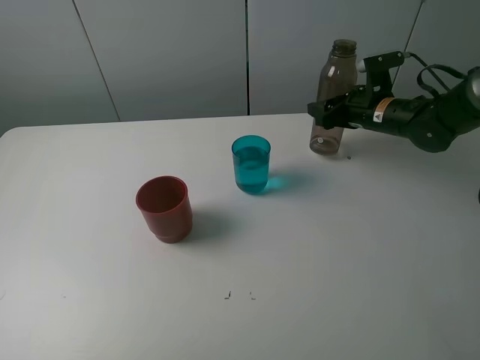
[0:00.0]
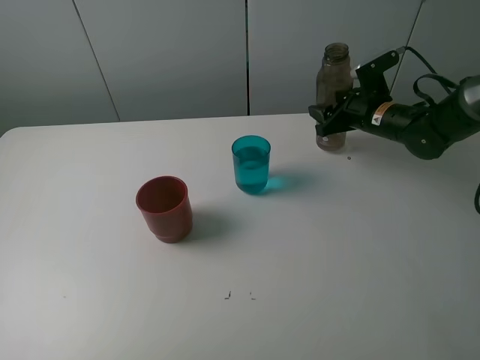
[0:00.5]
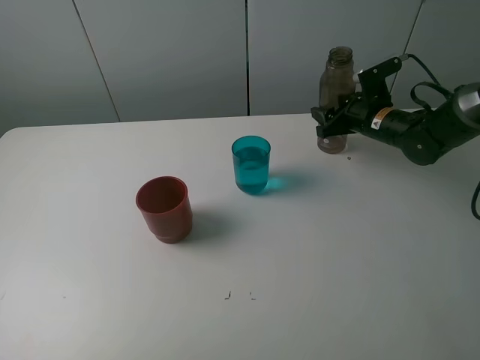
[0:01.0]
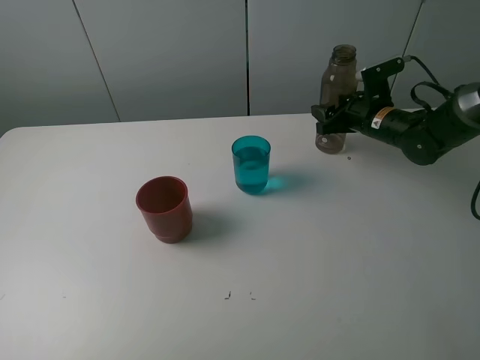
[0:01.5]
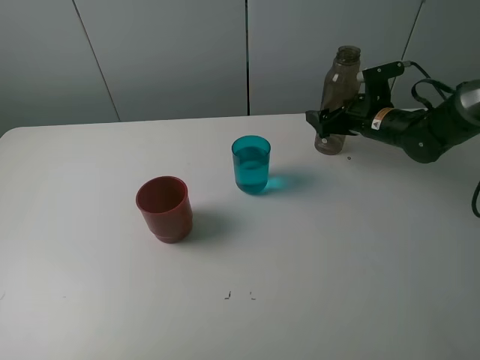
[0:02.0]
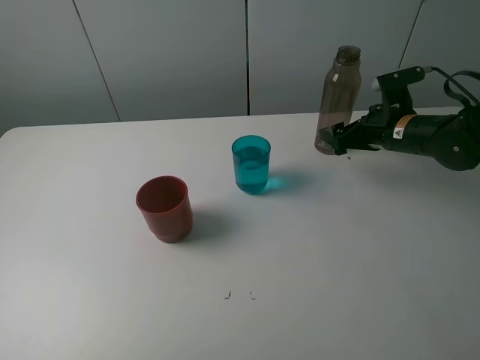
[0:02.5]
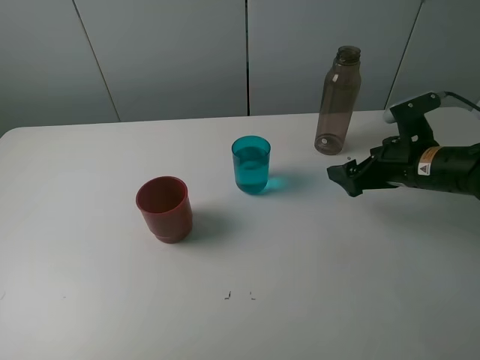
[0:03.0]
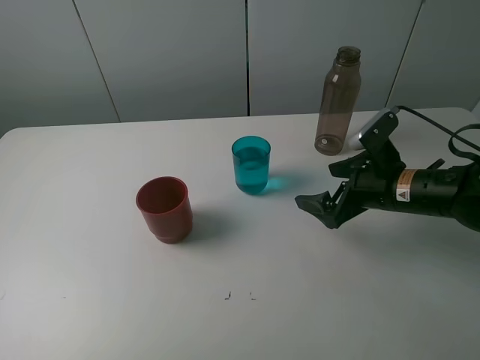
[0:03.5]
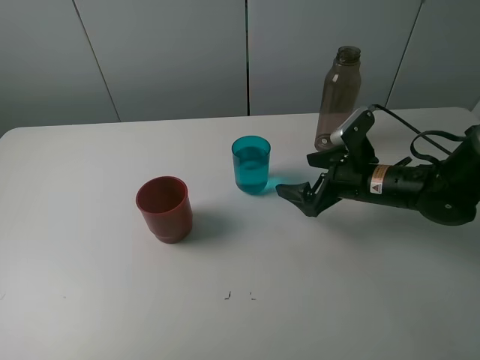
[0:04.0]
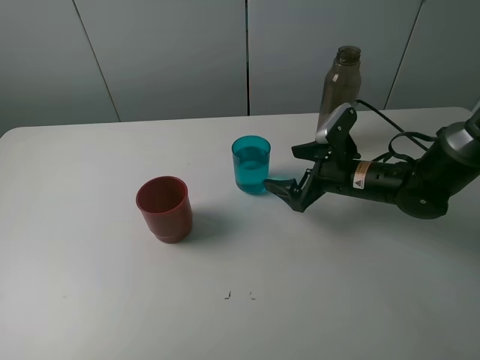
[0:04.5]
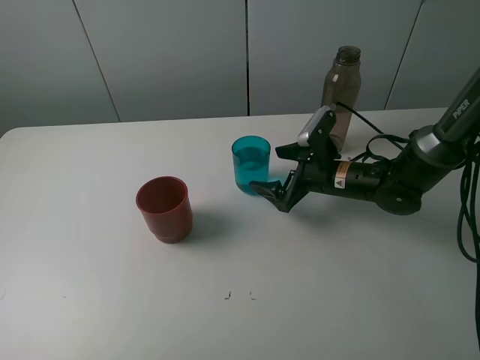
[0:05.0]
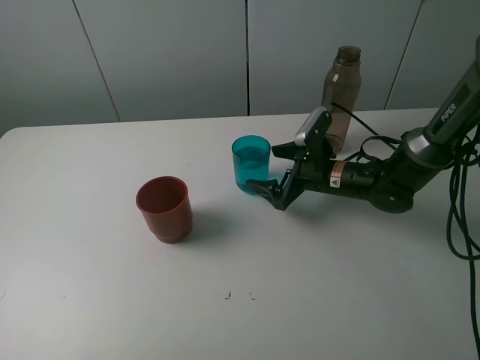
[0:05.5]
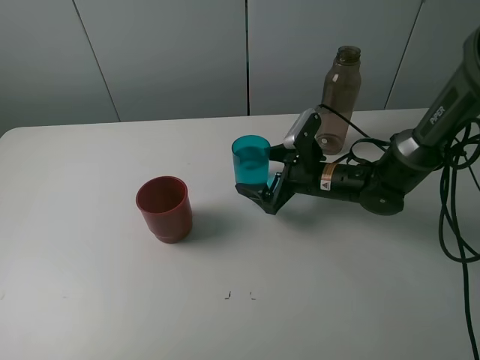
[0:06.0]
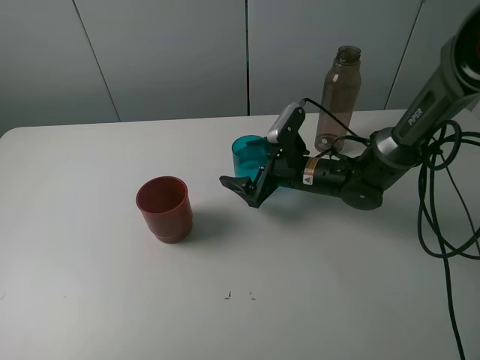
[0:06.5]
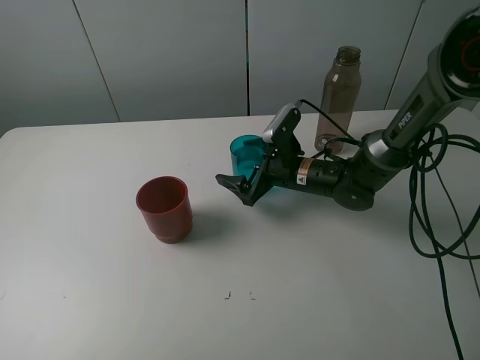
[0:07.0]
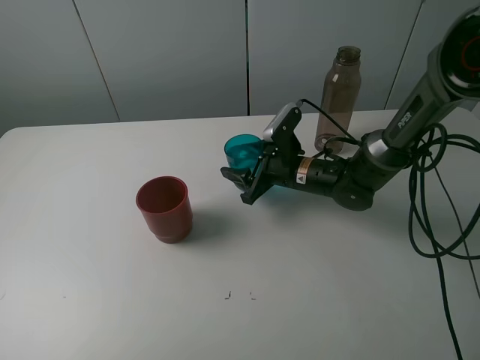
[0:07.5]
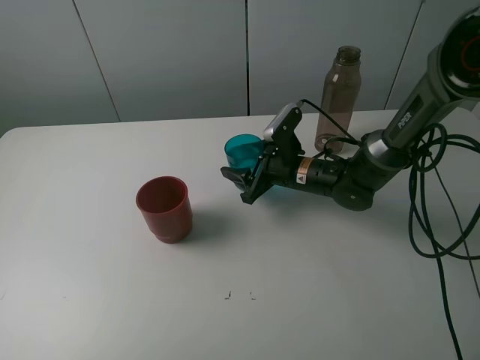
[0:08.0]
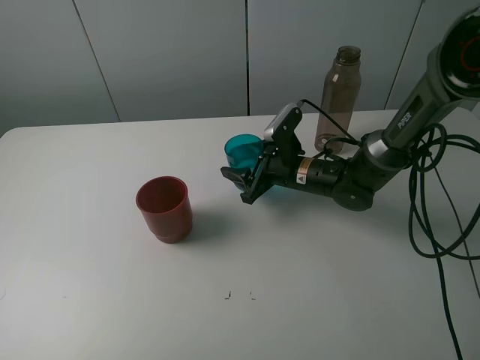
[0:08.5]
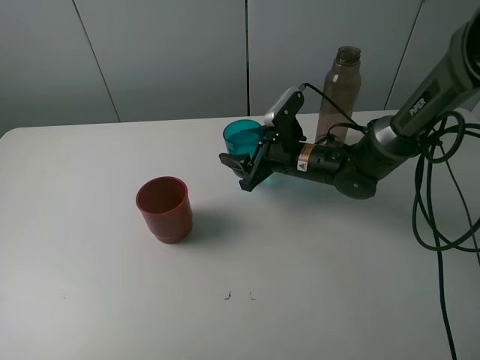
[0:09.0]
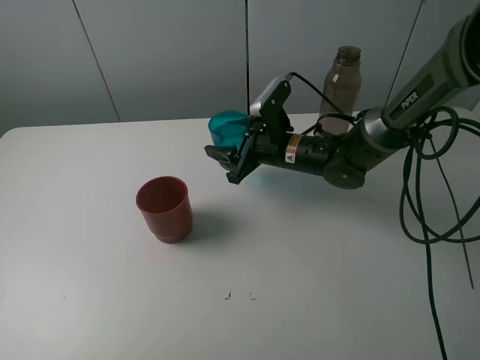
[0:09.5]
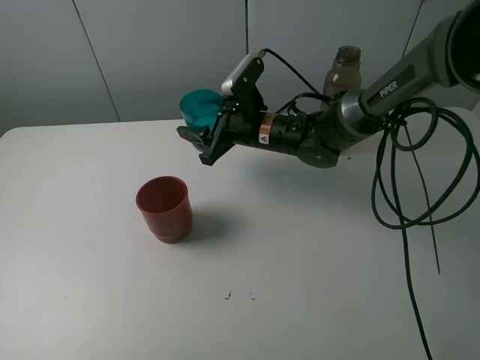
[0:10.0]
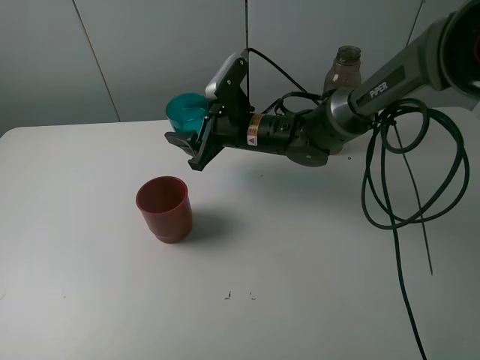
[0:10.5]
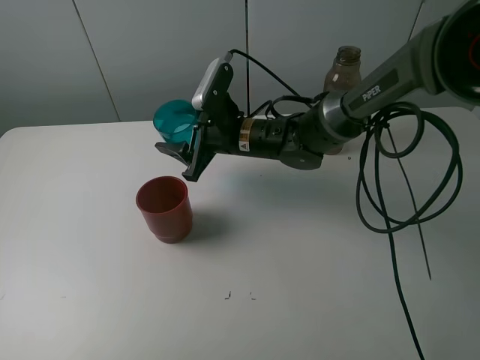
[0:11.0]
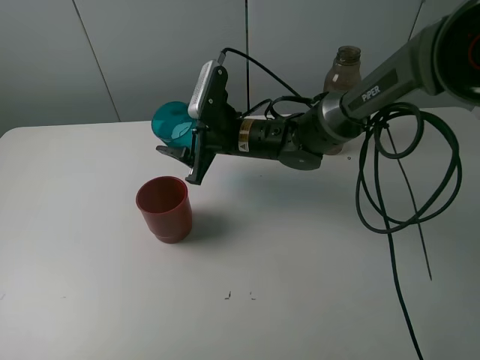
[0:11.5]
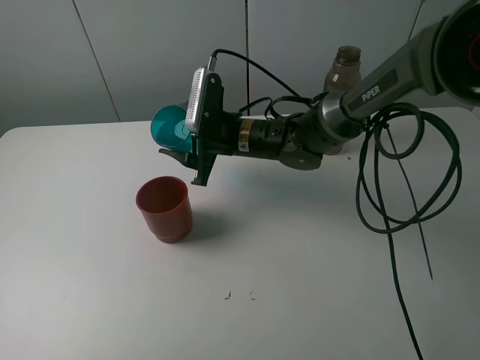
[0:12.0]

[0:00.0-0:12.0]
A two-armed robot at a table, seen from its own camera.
Task of the whole recording: pick up the bottle and pour water into the cup, then pick up the cup containing water and pour it into another cup.
Step, 0:00.0 to 0:02.0: Place the brown bottle with the right gripper.
Step, 0:02.5 to 0:07.5: Grasp the blue cup with the right gripper.
0:00.0 to 0:02.0: The right gripper opens up.
0:02.0 to 0:04.0: The right gripper moves backward and to the left, some 15 cm.
0:04.0 to 0:06.0: The right gripper shifts some 5 cm to the left.
0:06.0 to 0:08.0: The right gripper closes its fingers.
0:08.0 to 0:10.0: The right gripper moves upward and to the left, about 10 cm.

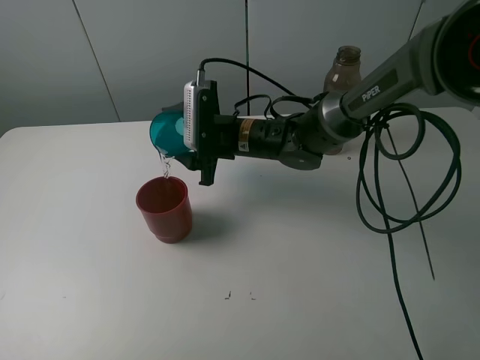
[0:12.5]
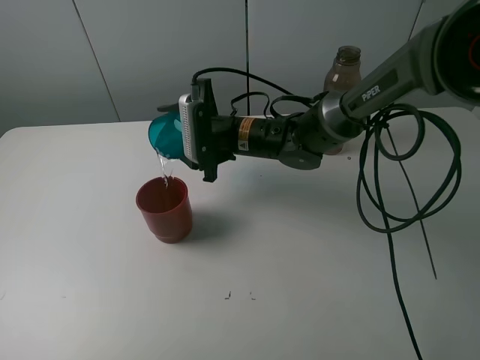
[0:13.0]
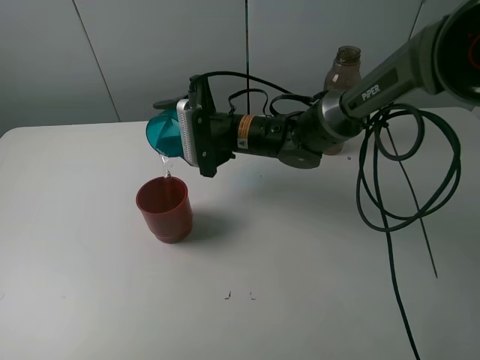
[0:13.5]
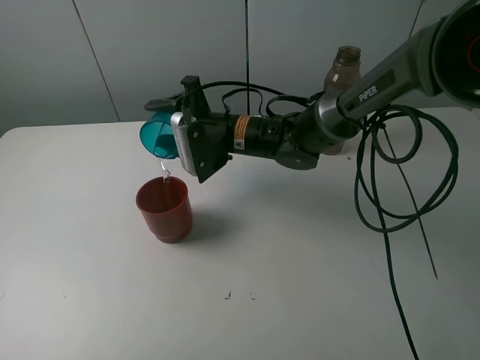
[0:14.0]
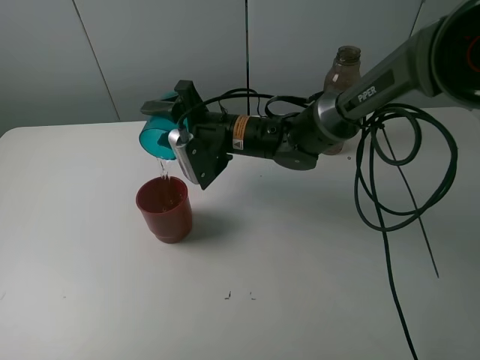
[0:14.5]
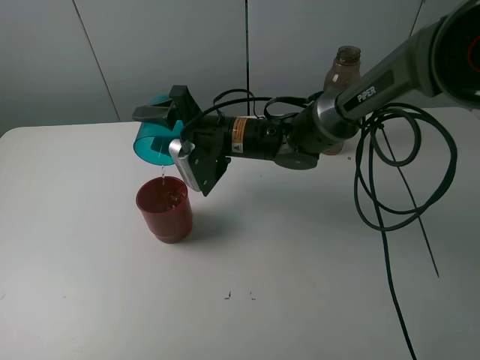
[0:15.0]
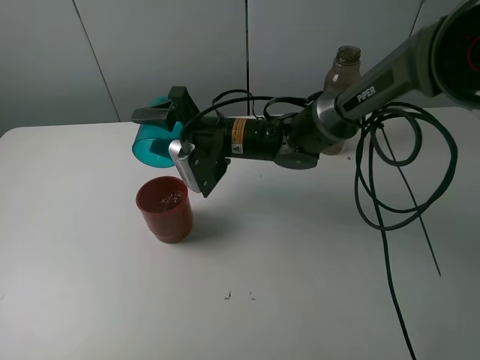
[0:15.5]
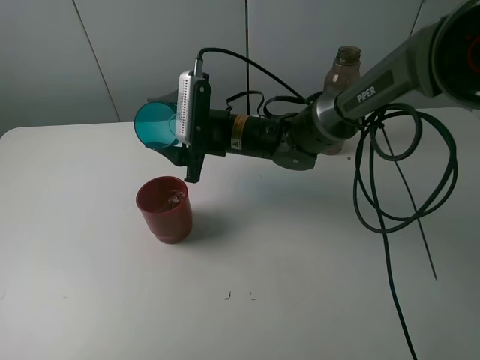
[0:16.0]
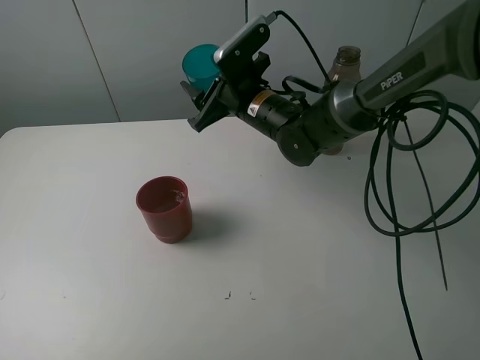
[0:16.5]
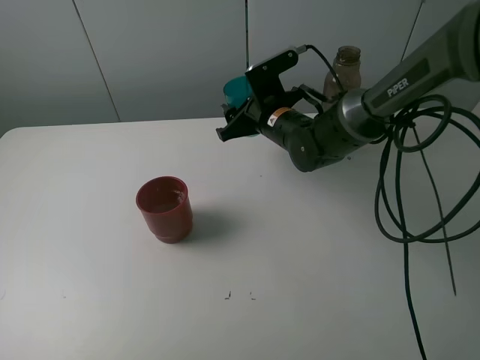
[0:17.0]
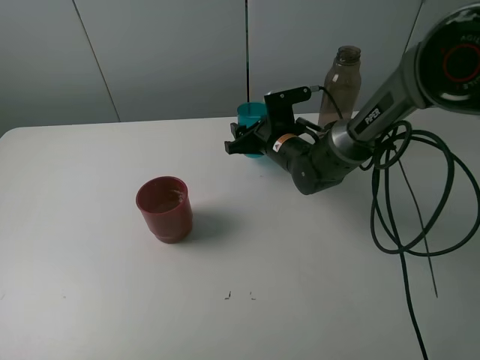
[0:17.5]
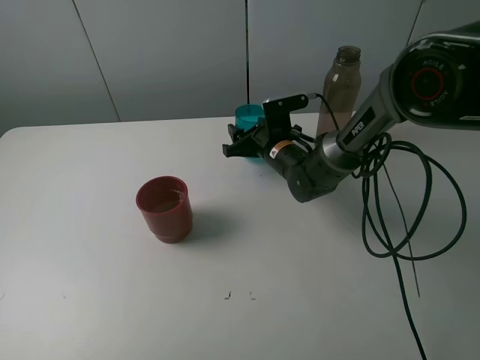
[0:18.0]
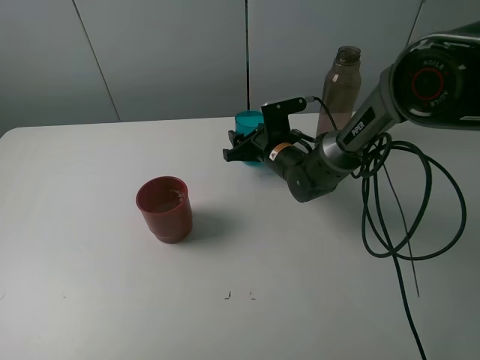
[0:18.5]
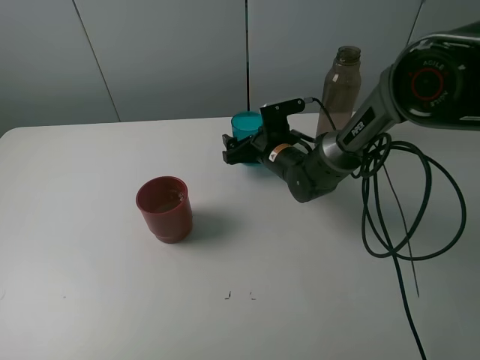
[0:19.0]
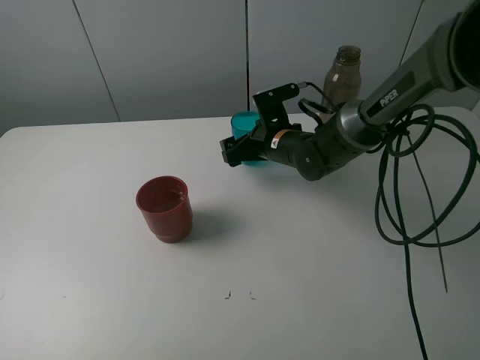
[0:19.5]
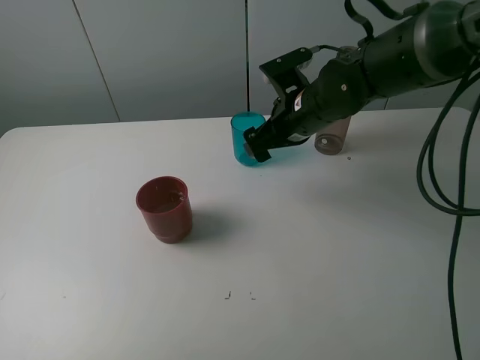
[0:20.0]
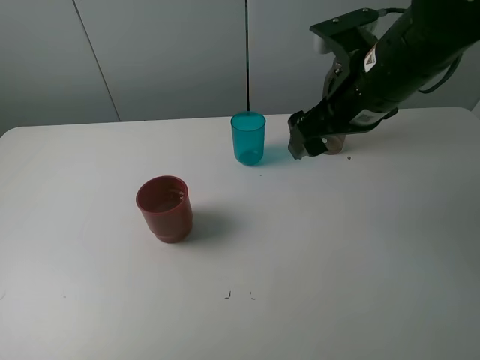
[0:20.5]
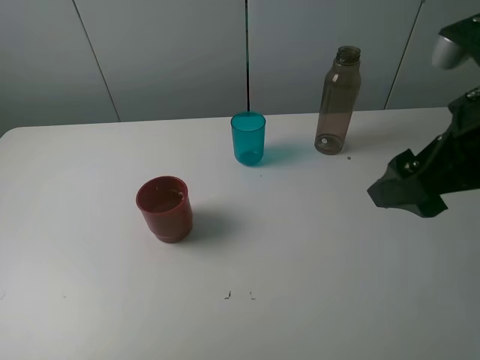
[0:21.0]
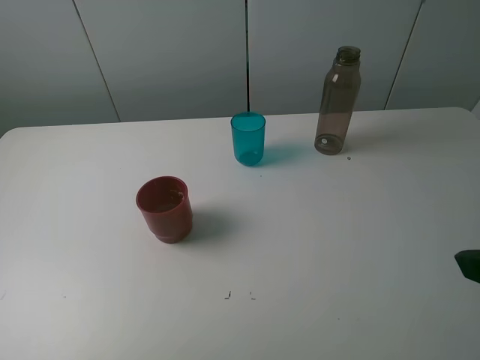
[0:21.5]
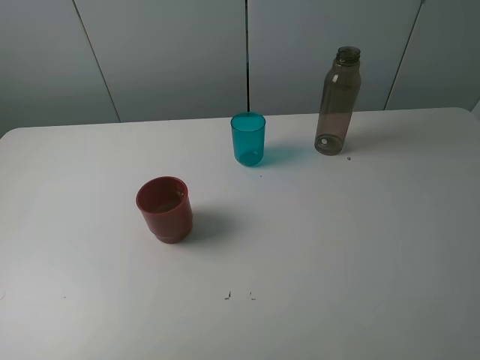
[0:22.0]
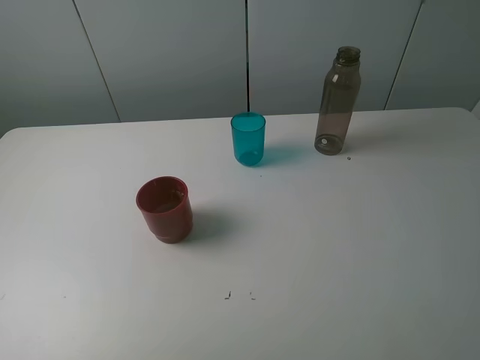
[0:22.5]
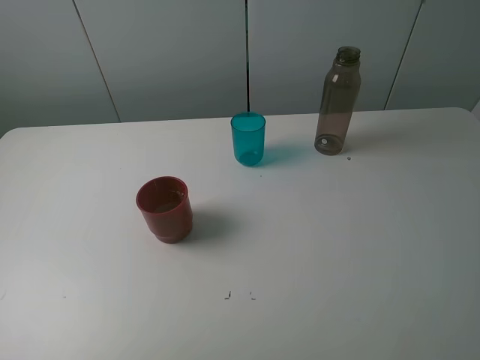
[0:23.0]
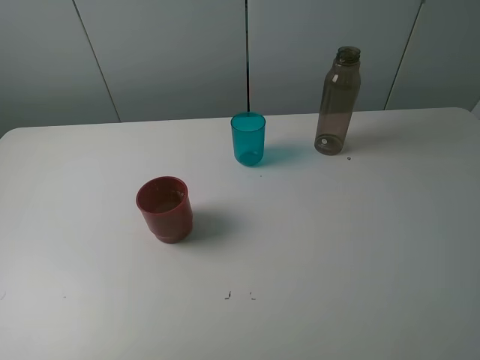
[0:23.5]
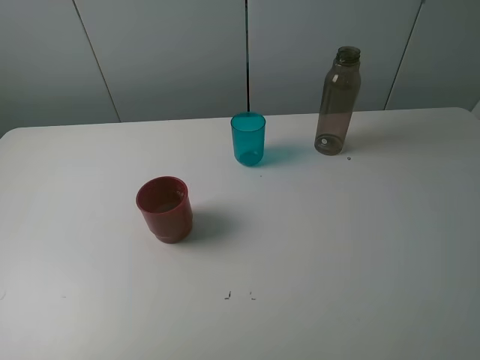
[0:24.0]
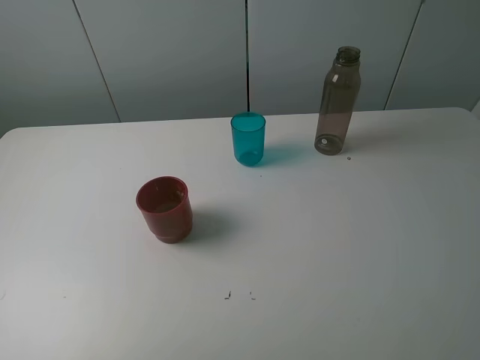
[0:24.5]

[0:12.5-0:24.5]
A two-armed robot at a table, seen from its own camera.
Task of the whole recording: pick up the bottle and pour water into the cup, then pick up the cup containing water and pour it into another cup.
Step, 0:12.5 to 0:15.5: Pour water from blue cup to red cup with the right gripper.
Step, 0:16.0 to 0:19.0: Place the blue cup with the right gripper.
0:14.5 to 0:16.5: The right gripper changes place by some 5 cm.
0:16.5 to 0:18.5: The right gripper goes some 10 cm downward.
0:18.5 to 0:20.5: The right gripper goes about 25 cm upward and backward, and opens its fingers.
0:20.5 to 0:22.5: The right gripper travels backward and to the right by roughly 30 cm.

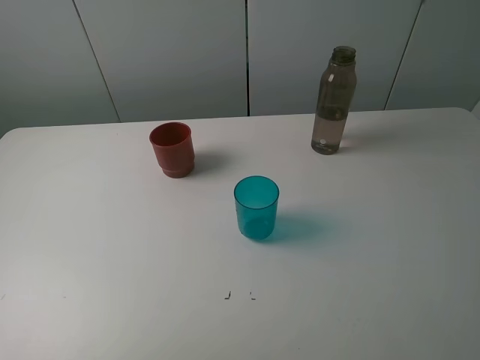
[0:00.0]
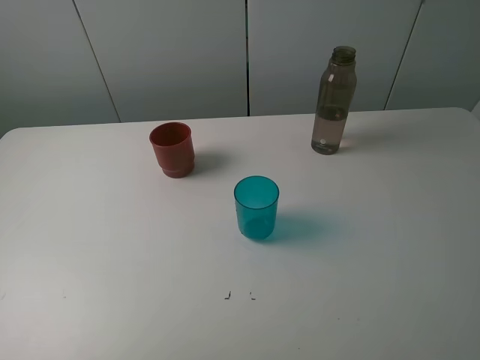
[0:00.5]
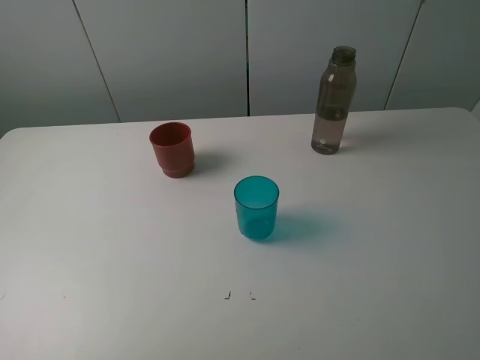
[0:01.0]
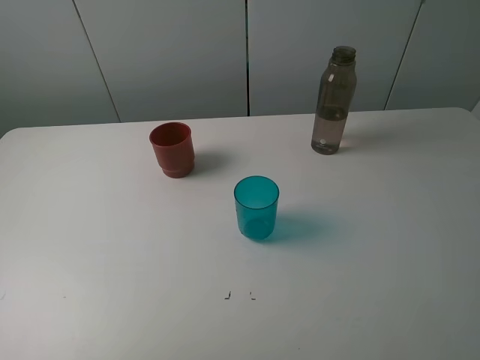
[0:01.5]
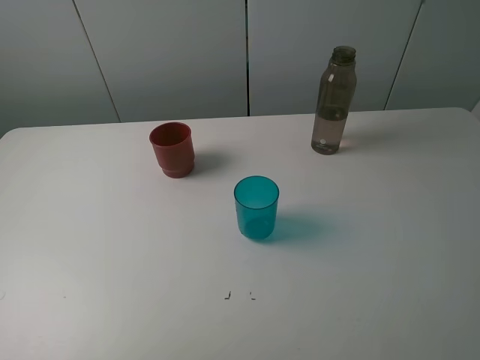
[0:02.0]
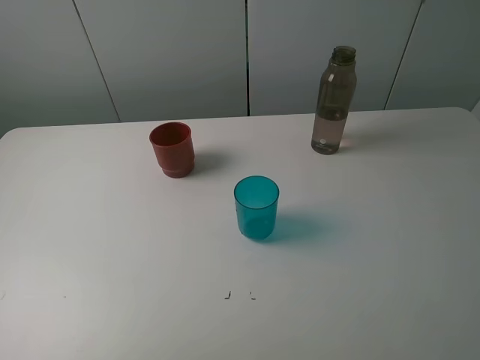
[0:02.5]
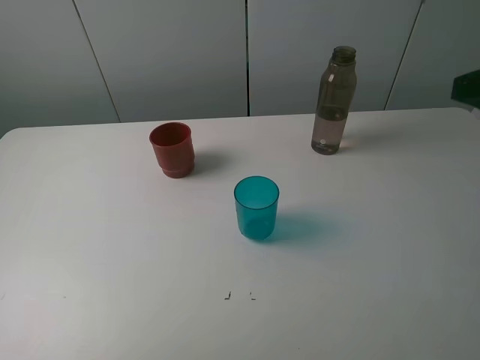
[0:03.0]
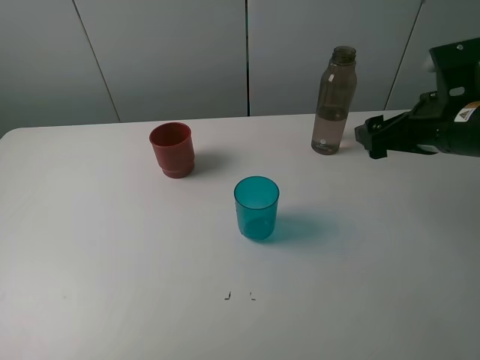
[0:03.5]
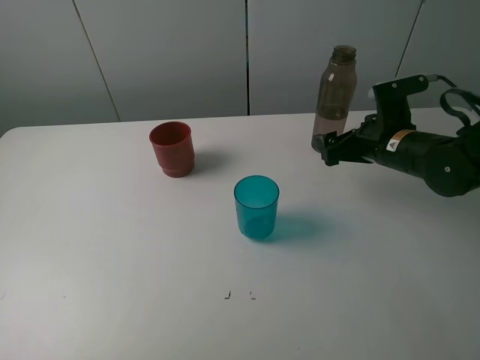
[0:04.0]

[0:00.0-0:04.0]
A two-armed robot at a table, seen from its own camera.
Task of the whole recording: pick up the bottle and pour water into the cup, then pick up the cup containing water and pour it into another cup.
0:00.0 to 0:02.0: Neither gripper changes place.
0:02.0 to 0:04.0: The right gripper travels forward and downward by about 35 cm.
